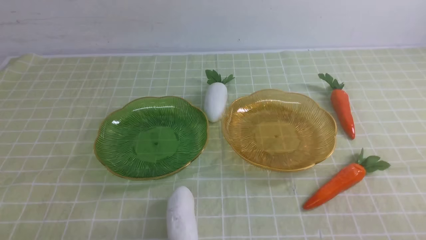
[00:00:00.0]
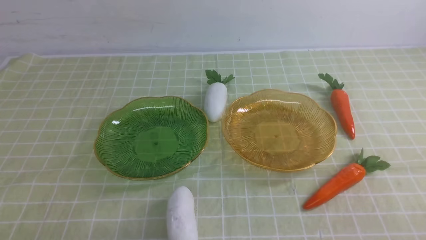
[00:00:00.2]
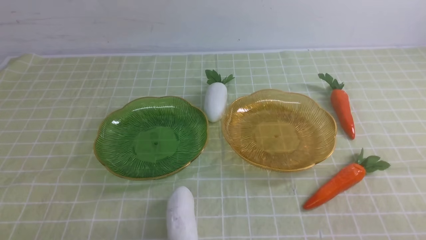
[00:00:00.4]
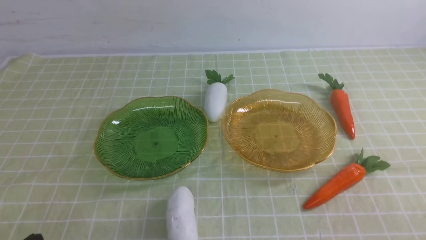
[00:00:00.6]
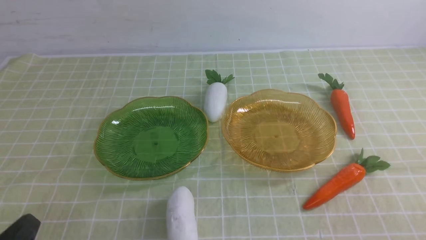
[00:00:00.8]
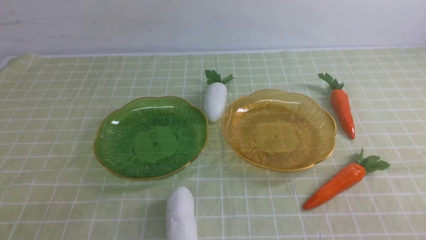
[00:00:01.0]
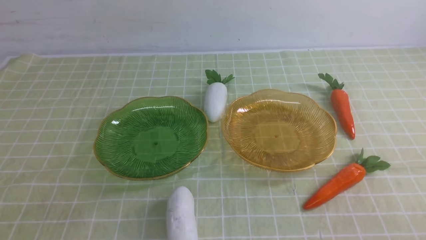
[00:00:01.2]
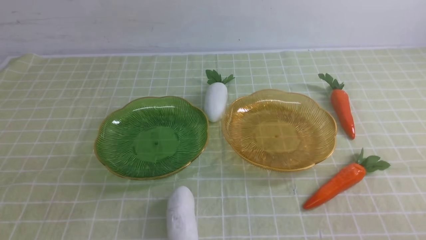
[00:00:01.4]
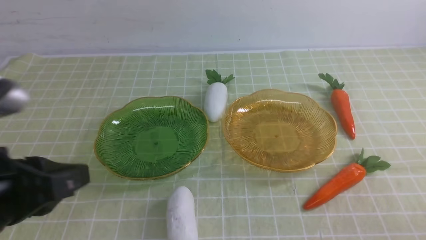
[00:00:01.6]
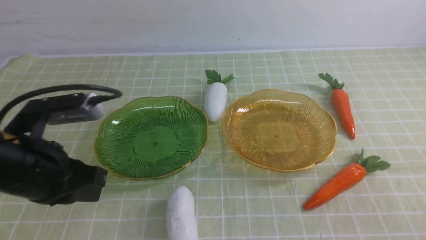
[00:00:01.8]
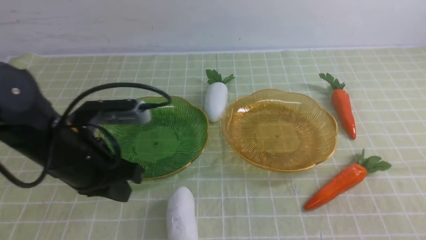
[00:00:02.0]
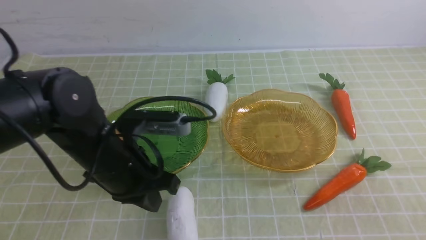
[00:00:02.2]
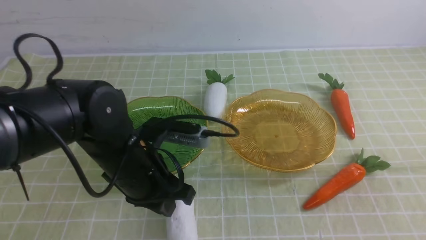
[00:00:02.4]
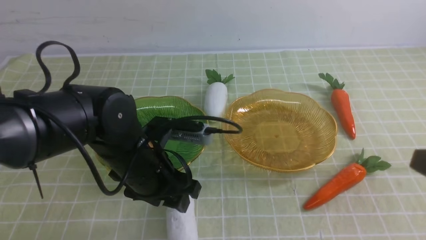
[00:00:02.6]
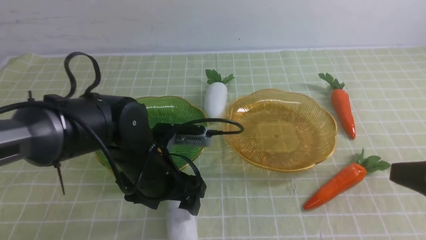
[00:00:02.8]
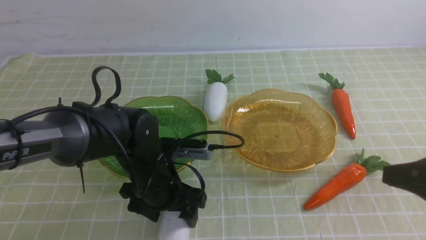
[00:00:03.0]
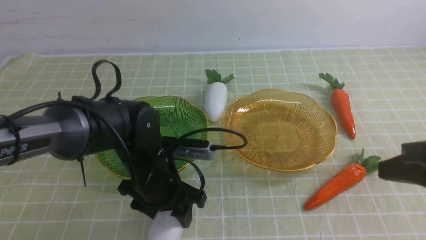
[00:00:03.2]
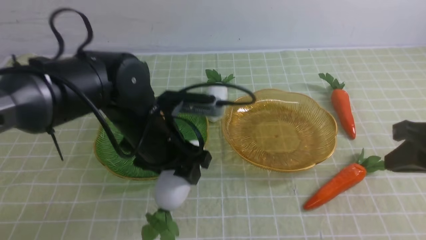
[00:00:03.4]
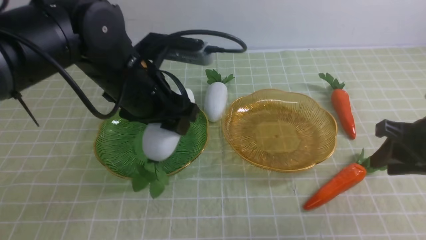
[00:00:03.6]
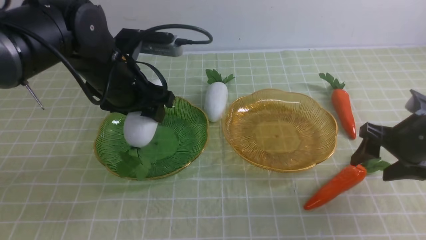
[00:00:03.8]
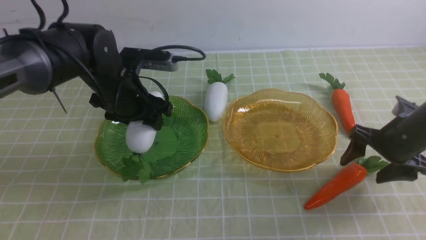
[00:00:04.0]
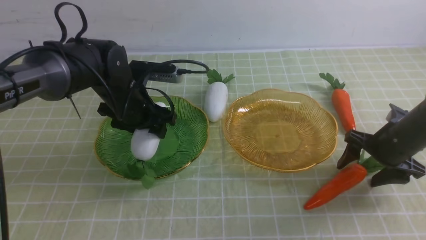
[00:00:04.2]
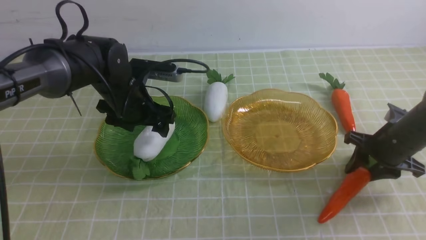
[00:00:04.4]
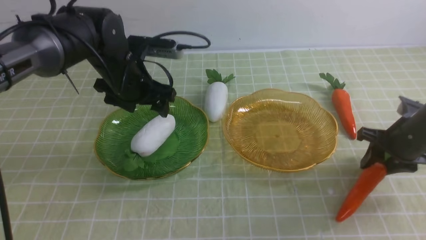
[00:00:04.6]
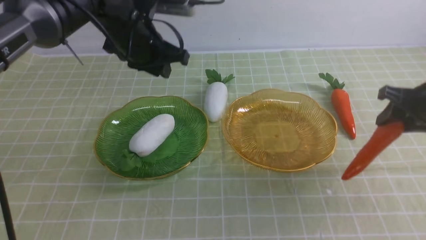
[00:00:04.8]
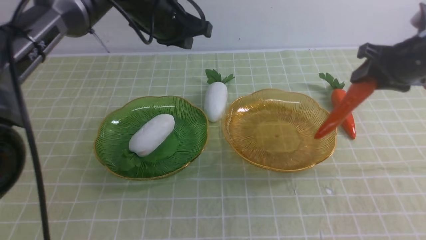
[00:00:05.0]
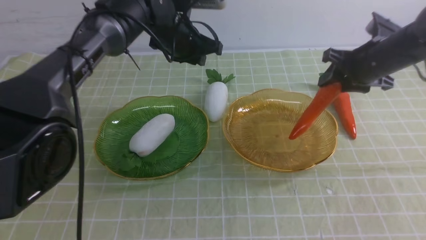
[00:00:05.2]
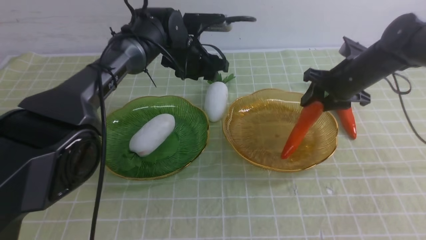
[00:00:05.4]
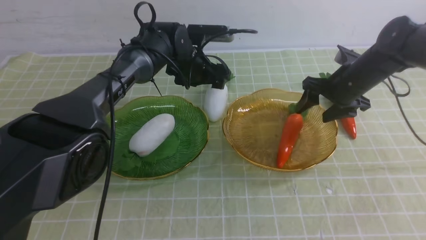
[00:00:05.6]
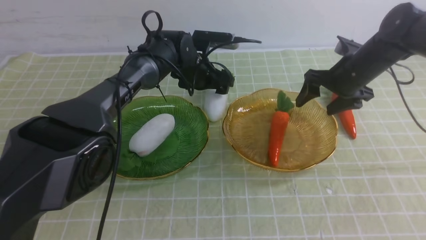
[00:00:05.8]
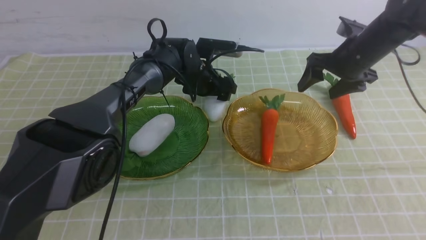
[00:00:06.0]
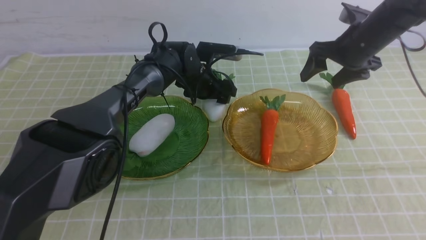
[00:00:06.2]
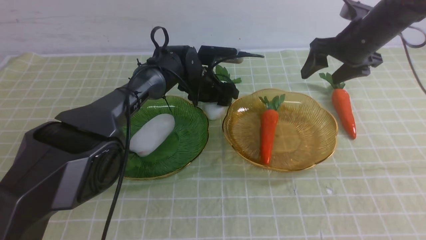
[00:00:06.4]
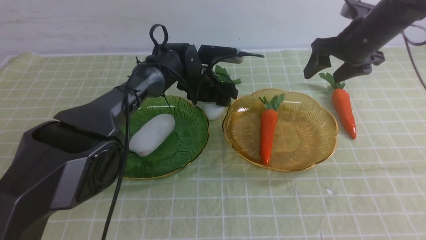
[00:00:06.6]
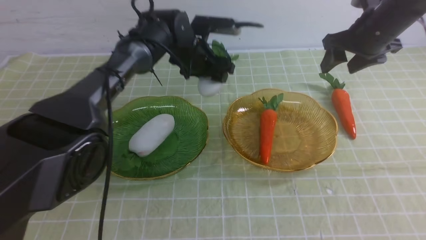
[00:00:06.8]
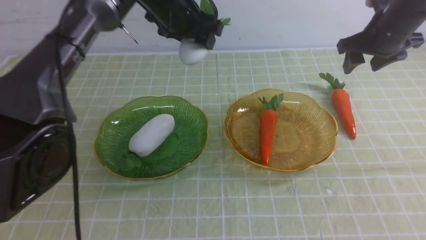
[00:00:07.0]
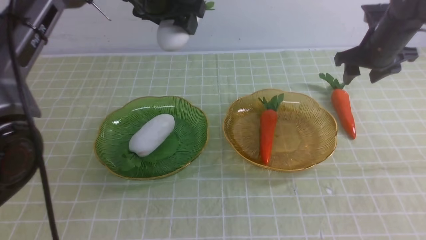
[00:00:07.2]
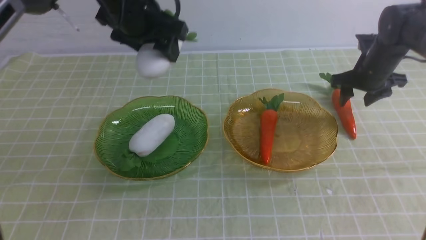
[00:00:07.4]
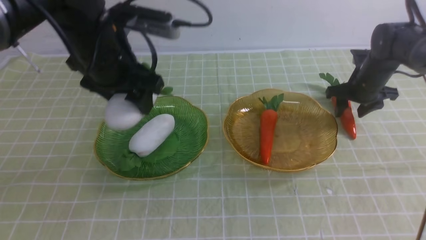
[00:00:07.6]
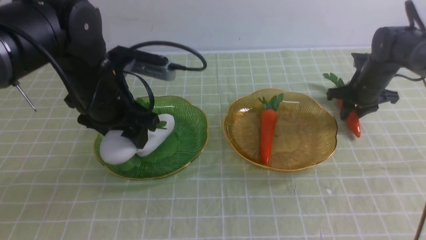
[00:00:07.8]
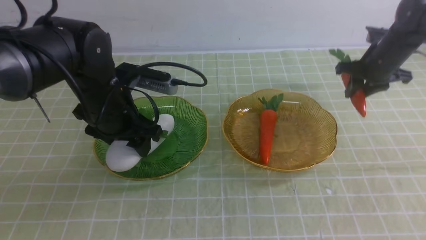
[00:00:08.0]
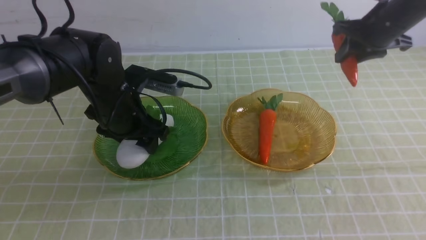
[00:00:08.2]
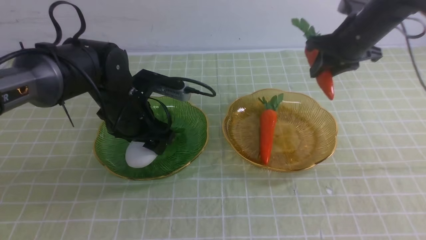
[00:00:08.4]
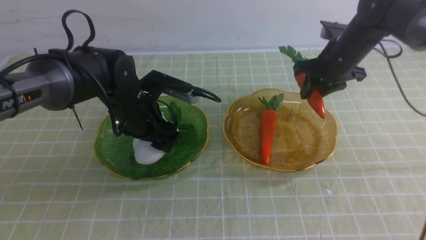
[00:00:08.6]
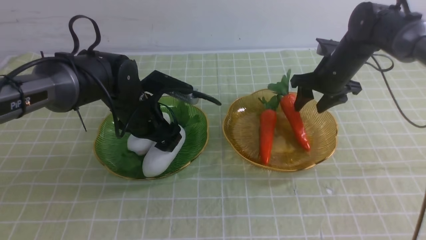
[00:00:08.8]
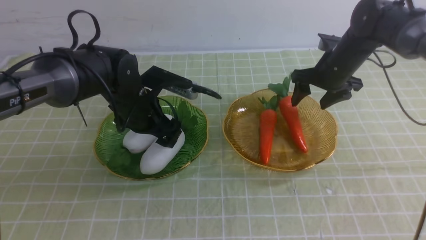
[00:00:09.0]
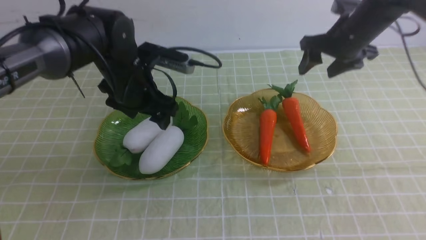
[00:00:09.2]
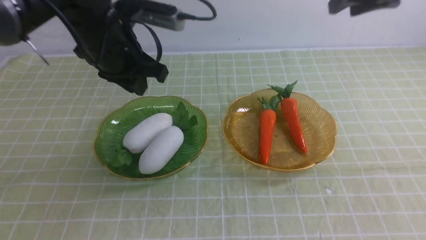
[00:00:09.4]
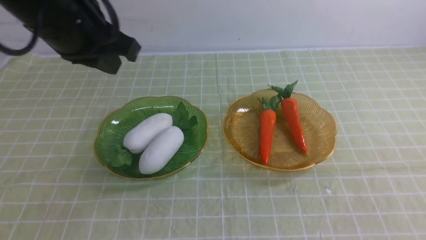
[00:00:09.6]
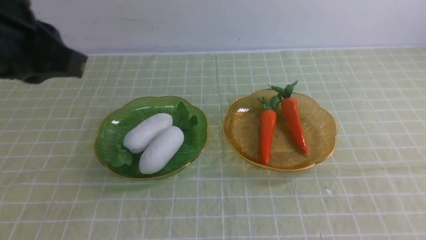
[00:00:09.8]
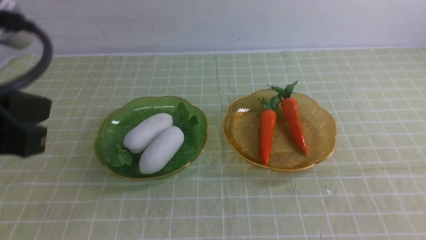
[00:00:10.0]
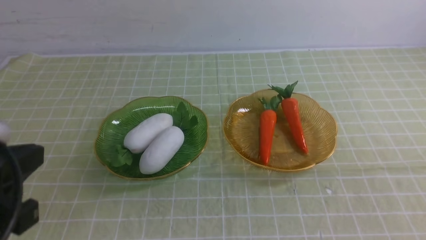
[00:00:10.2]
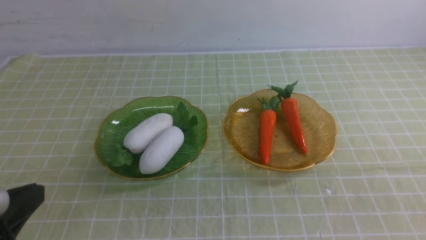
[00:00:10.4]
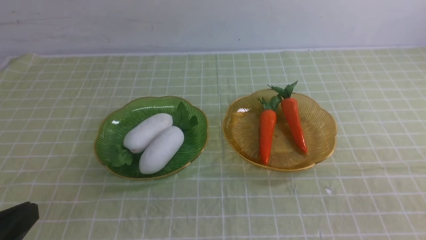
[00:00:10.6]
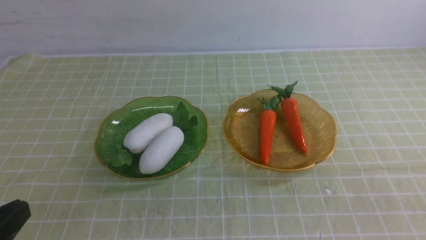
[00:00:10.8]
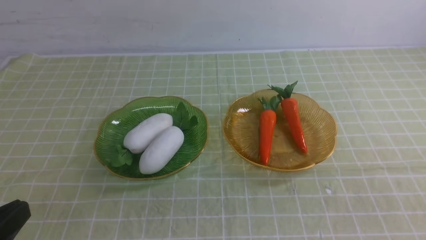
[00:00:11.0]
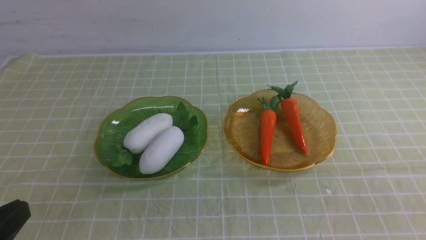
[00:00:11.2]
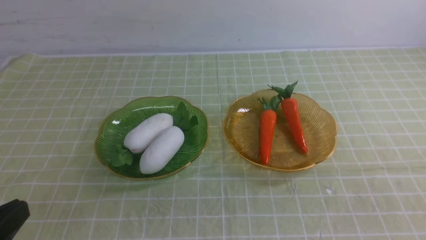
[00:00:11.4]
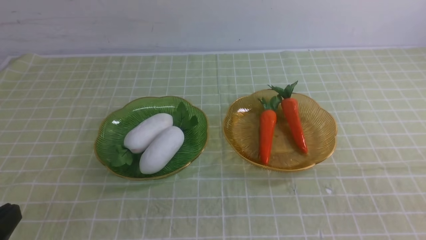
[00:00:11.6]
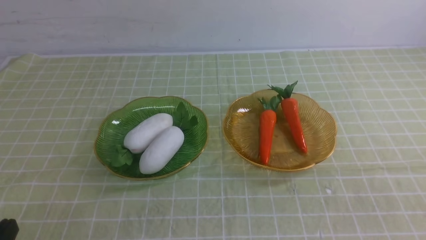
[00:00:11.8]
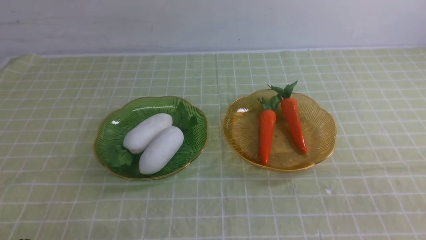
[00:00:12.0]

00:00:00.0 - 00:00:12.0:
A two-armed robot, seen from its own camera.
Step, 00:00:00.0 - 00:00:04.4: use the left arm to grab a radish and put it into the left plate.
Step, 00:00:04.6 - 00:00:05.8: use the right arm to grab a carrot and put it into the right plate.
Step, 00:00:06.0 - 00:00:08.8: use the left arm to grab a radish and put it into the left plate.
Step, 00:00:09.0 - 00:00:09.2: use the right arm to grab a chayote and put it into the right plate.
00:00:01.6 - 00:00:03.0: The right gripper shifts approximately 15 cm upward and forward, while the left gripper moves forward, downward and to the right, roughly 25 cm, and opens its fingers.
00:00:03.0 - 00:00:04.4: The left gripper shifts roughly 15 cm forward and to the left. Meanwhile the right gripper shifts some 25 cm forward and downward, and opens its fingers.
00:00:04.4 - 00:00:06.0: The right gripper shifts approximately 15 cm forward, upward and to the left; the left gripper moves forward and to the right, approximately 15 cm, reaches approximately 10 cm upward, then returns, and closes, then reopens.
00:00:06.0 - 00:00:07.6: The right gripper goes about 10 cm downward and to the right, and closes up. The left gripper goes some 25 cm backward, upward and to the left.
00:00:07.6 - 00:00:09.0: The right gripper is displaced to the left and upward by some 10 cm; the left gripper shifts some 10 cm downward.
00:00:09.0 - 00:00:10.4: The grippers both shift backward by some 35 cm. The left gripper closes up. The right gripper closes its fingers.
00:00:10.4 - 00:00:12.0: The left gripper heads downward, covering roughly 10 cm.

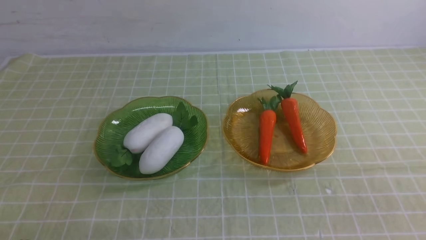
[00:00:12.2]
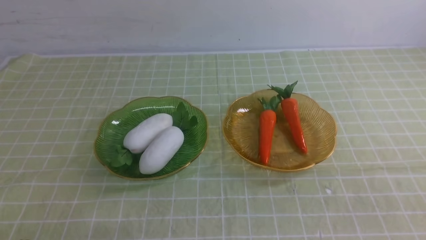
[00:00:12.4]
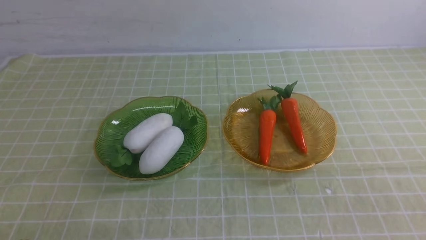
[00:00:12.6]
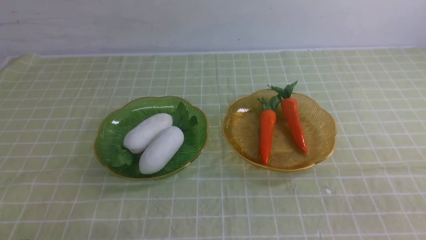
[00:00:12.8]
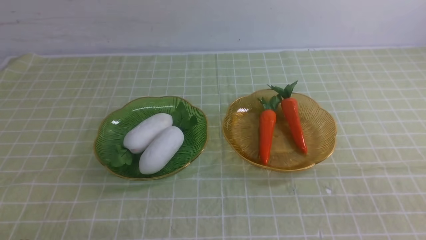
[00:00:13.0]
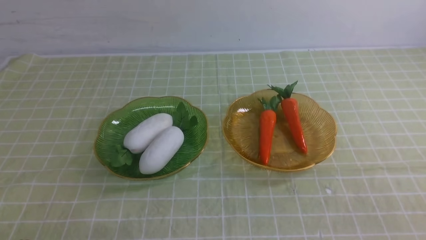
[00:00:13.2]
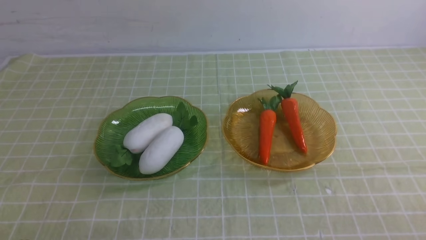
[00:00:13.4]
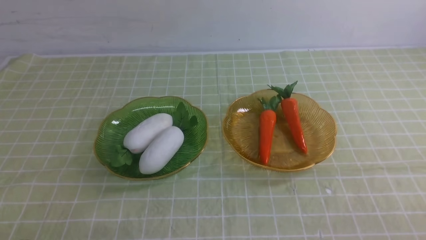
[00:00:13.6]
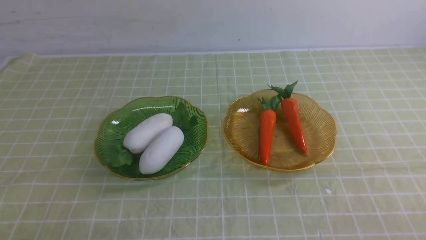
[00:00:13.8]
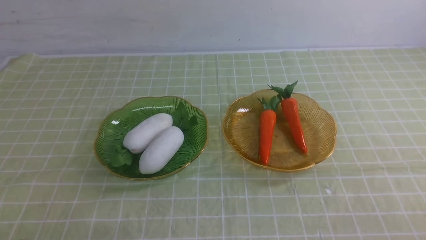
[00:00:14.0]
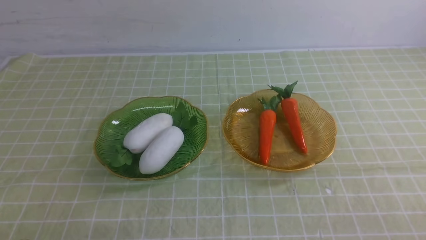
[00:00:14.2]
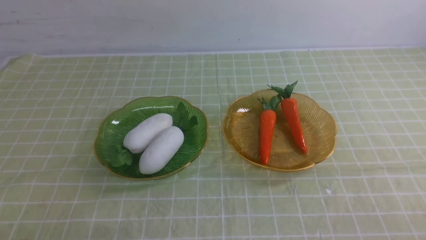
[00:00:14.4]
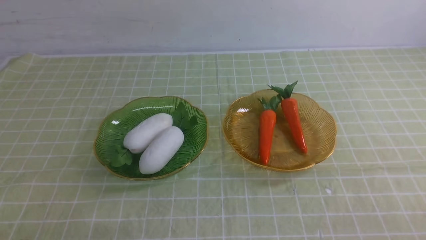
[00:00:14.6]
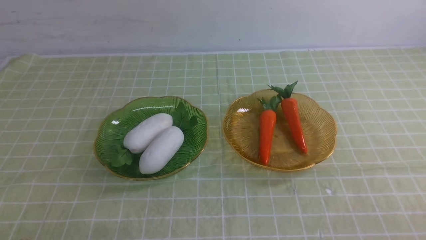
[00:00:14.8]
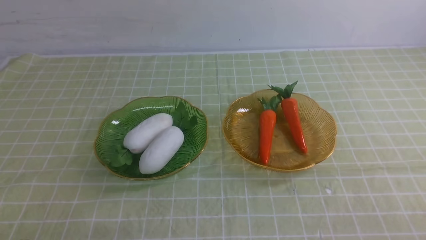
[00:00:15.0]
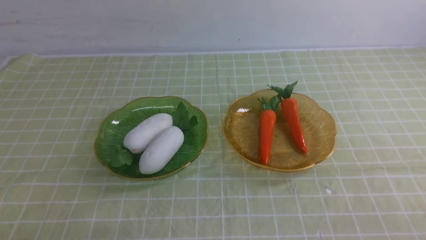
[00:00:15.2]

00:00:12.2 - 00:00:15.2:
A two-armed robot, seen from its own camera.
00:00:13.8 - 00:00:15.2: Both grippers stay about where they are.
